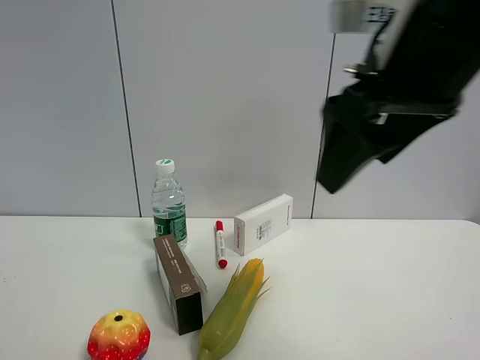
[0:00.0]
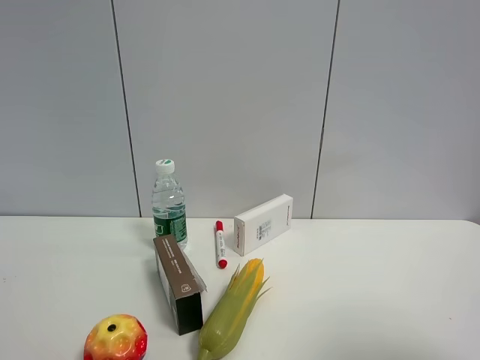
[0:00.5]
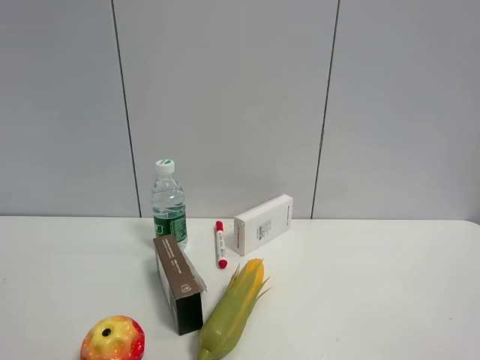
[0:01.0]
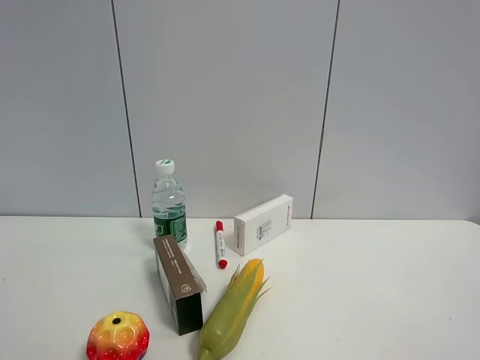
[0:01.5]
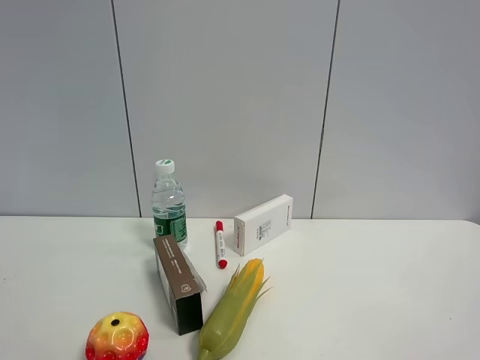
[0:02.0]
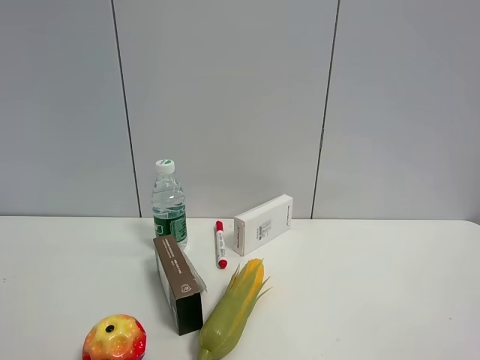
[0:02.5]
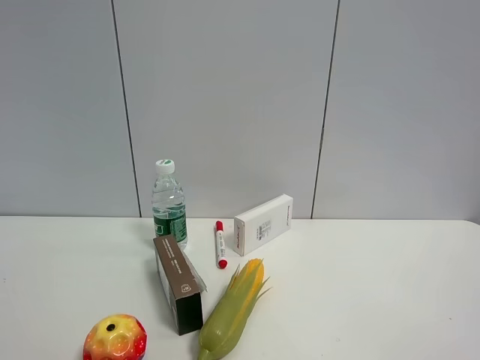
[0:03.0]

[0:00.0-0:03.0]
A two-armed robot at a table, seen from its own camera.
Task of the whole recording: the gripper move the object.
0:00.0 to 0:01.5: The right gripper is displaced backward and to the right by roughly 30 cm.
0:01.5 to 0:03.0: Neither gripper changes place.

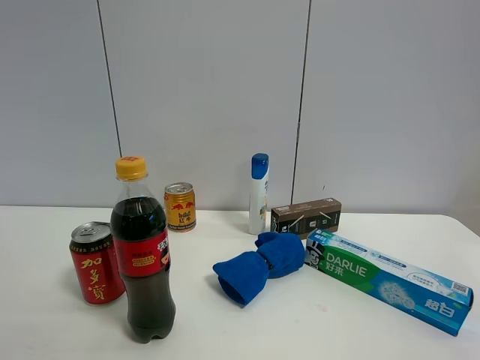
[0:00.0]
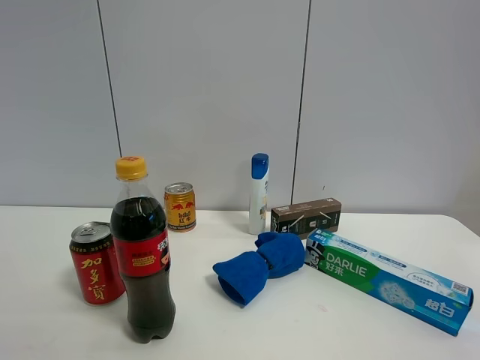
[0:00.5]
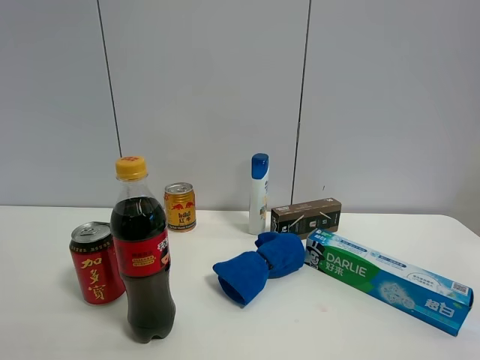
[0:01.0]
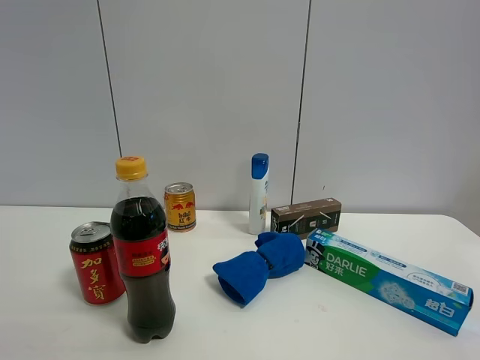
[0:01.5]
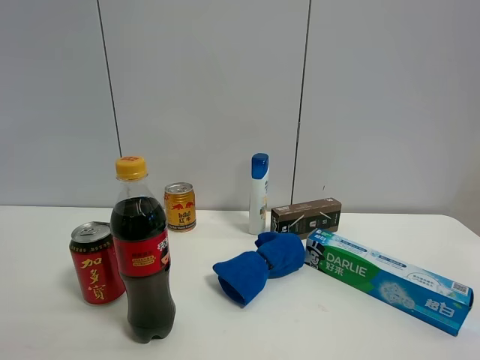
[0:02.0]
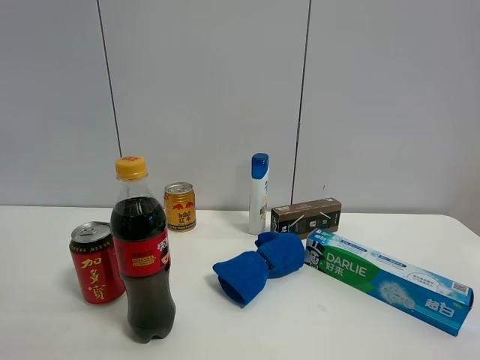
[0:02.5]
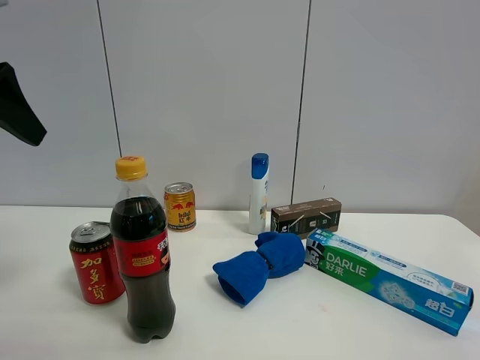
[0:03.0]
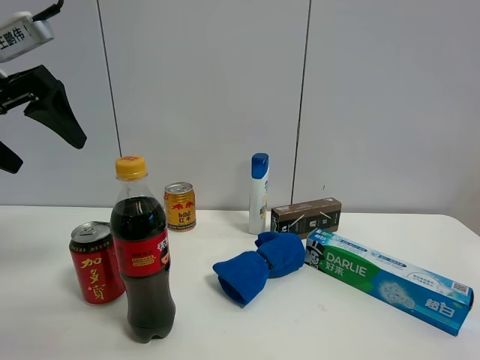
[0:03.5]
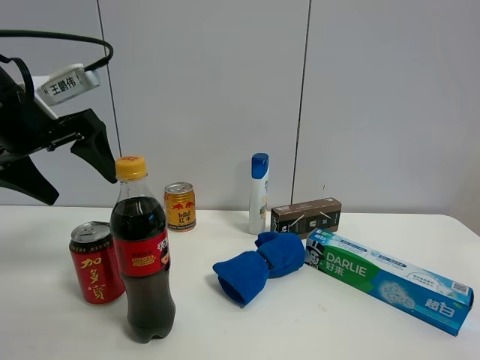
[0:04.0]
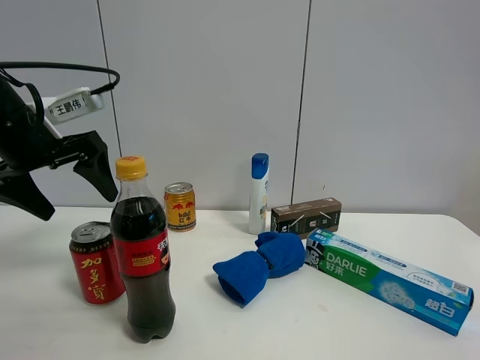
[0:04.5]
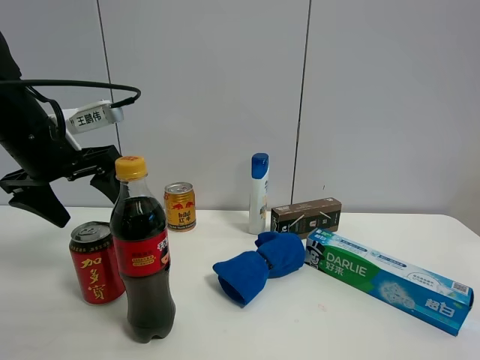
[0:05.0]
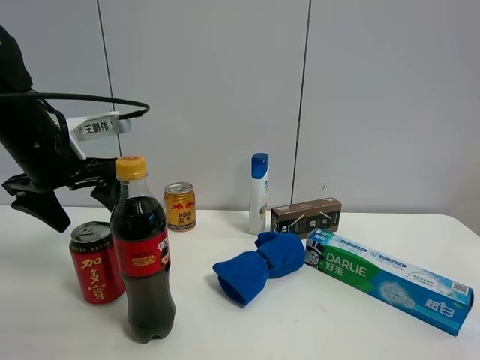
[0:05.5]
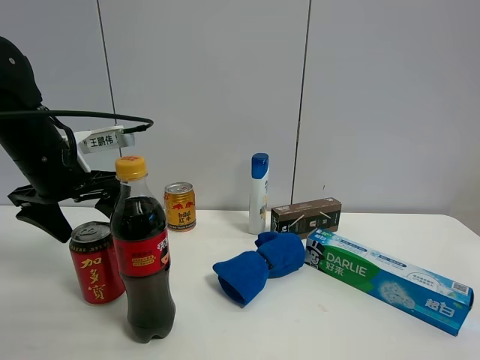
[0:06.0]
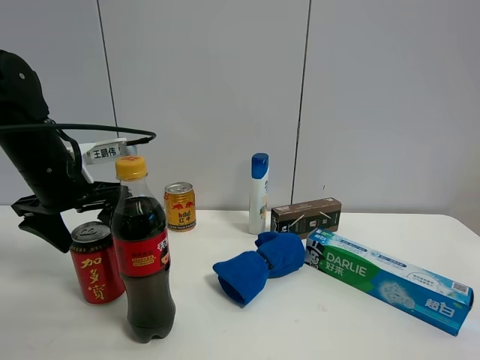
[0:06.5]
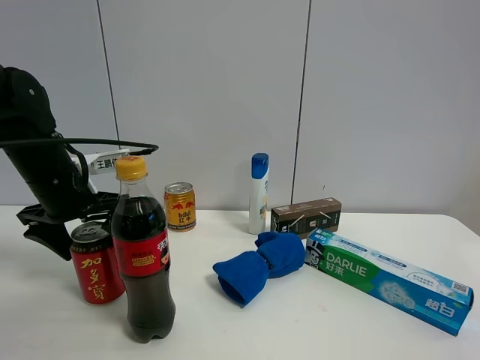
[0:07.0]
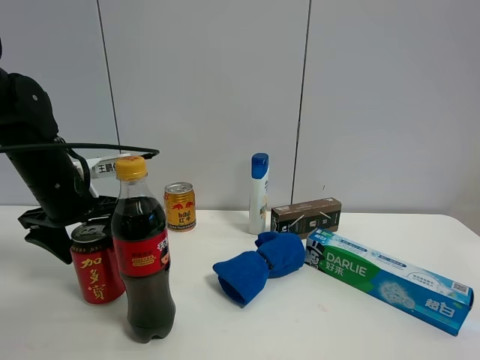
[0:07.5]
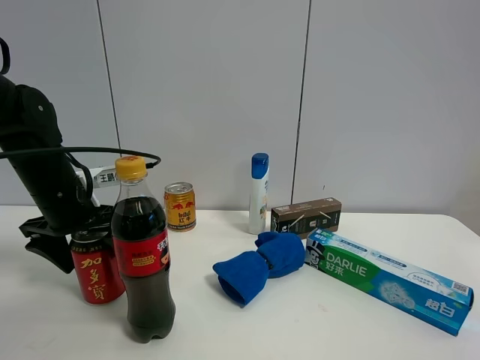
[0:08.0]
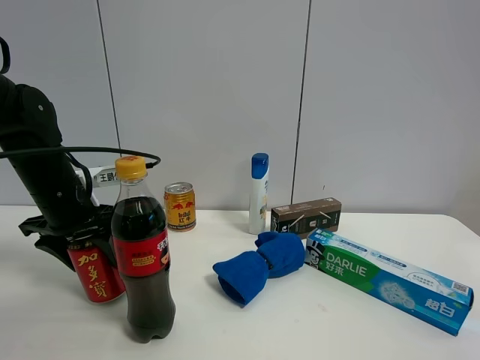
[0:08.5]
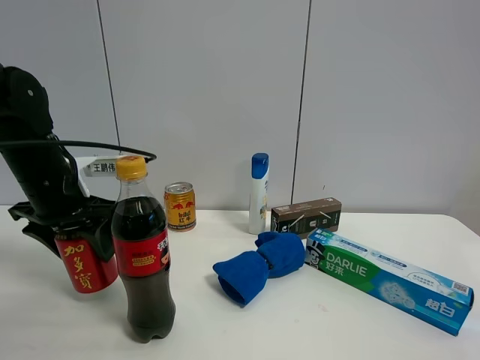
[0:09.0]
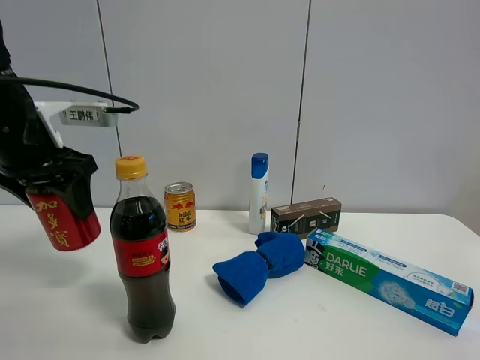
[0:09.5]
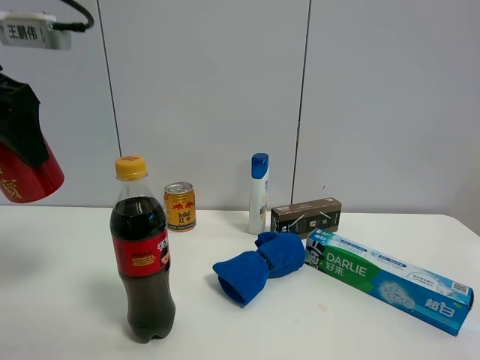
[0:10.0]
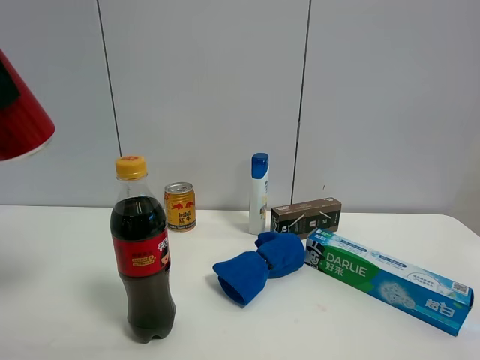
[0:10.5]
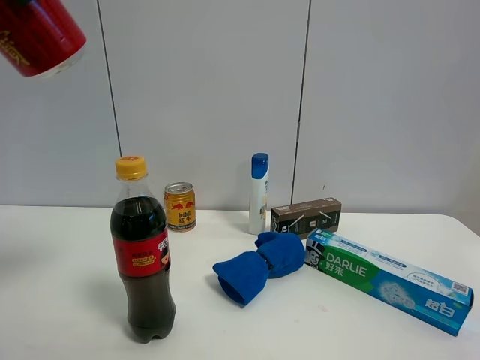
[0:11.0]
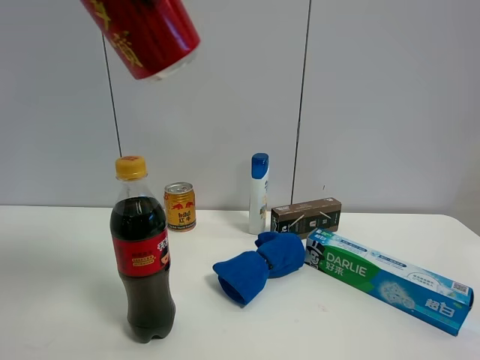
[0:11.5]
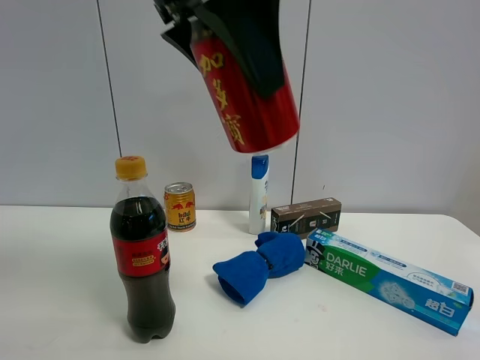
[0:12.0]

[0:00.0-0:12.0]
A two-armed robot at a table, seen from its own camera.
Task of the whole recording: the gripper move the object.
Step, 0:00.0 to 0:08.0: Grasp the Jia Duo Bao with the left gripper.
0:02.0 to 0:04.0: The left gripper goes about 25 cm forward and downward.
0:04.0 to 0:06.0: The left gripper shifts some 5 cm downward.
0:06.0 to 0:08.0: The left gripper heads downward, covering about 5 cm.
0:08.0 to 0:10.0: The left gripper is displaced upward and backward by roughly 20 cm, and closes its fingers.
0:10.0 to 0:12.0: The left gripper heads to the right, covering about 20 cm.

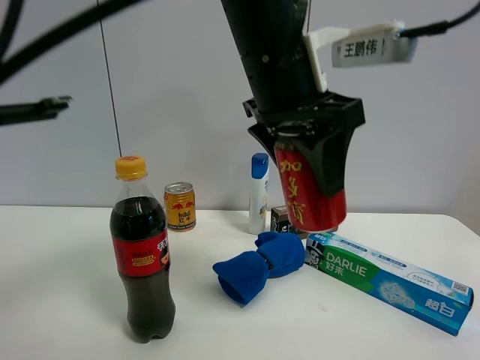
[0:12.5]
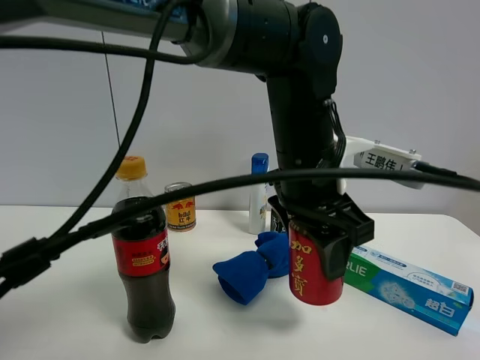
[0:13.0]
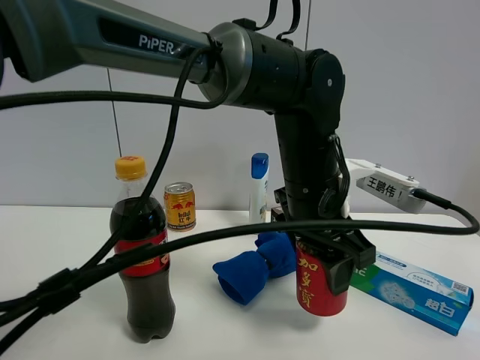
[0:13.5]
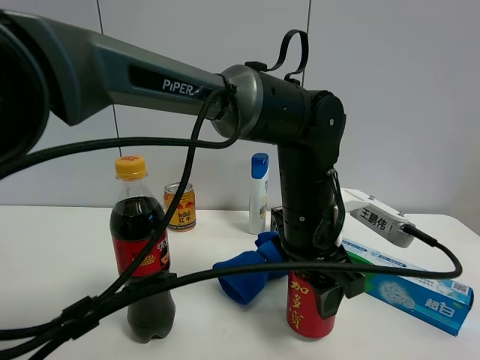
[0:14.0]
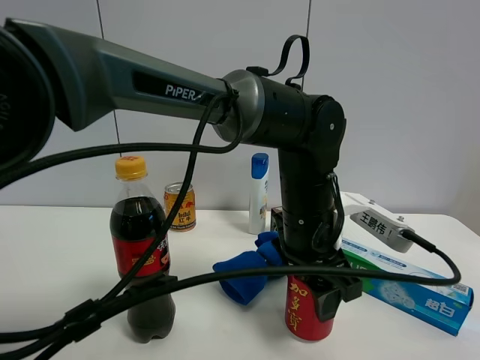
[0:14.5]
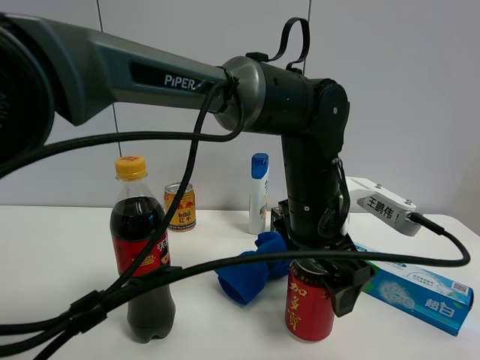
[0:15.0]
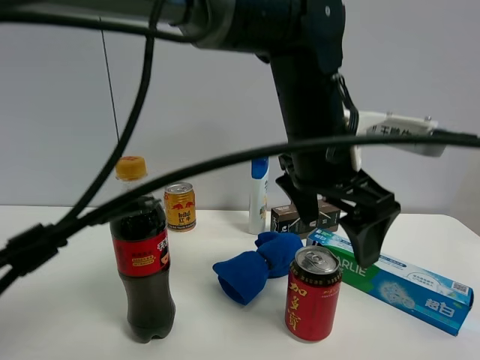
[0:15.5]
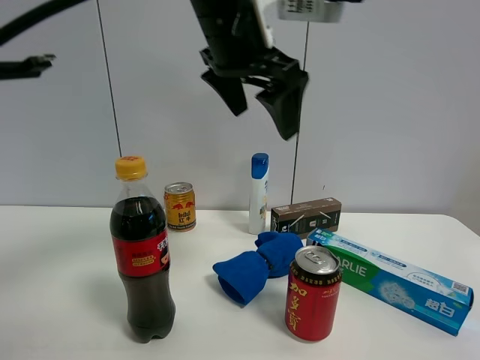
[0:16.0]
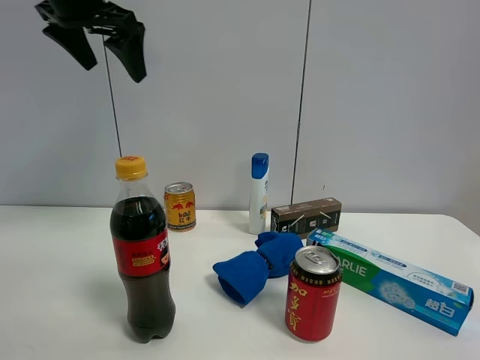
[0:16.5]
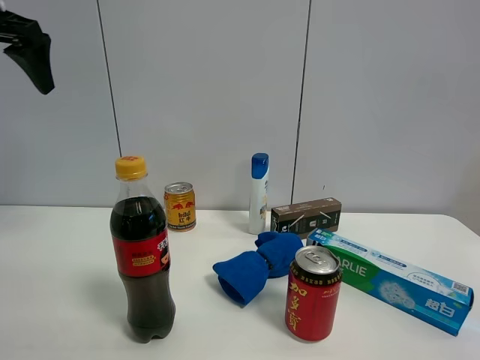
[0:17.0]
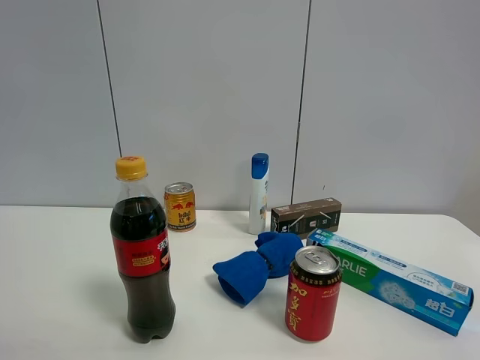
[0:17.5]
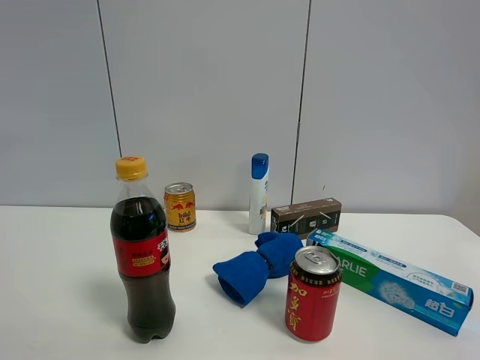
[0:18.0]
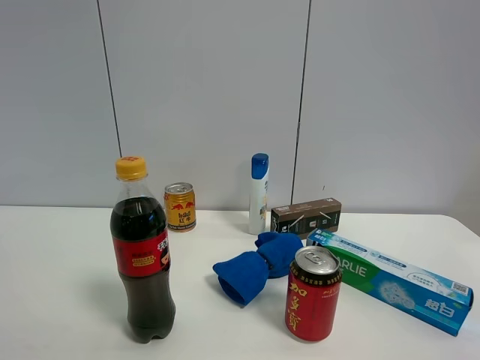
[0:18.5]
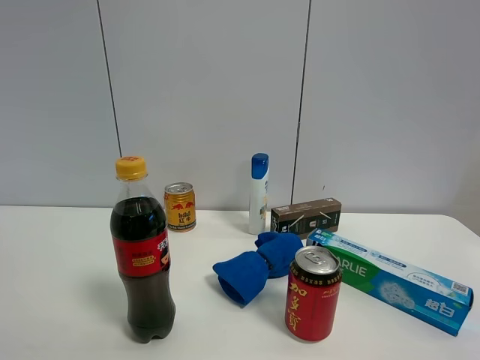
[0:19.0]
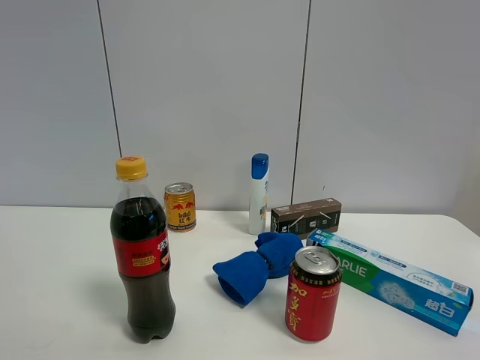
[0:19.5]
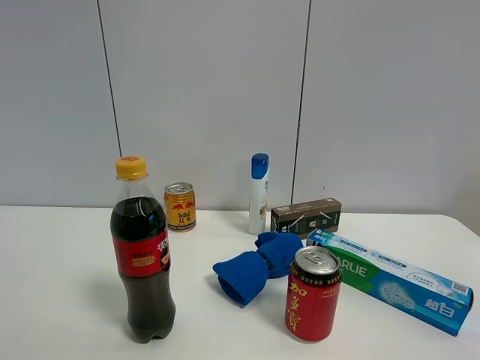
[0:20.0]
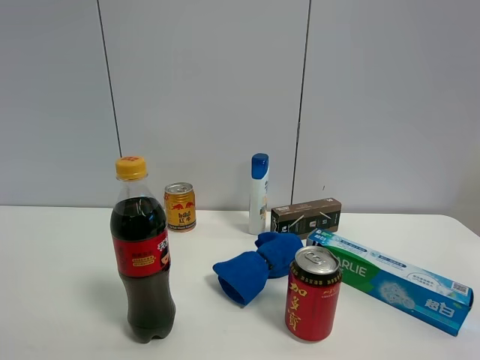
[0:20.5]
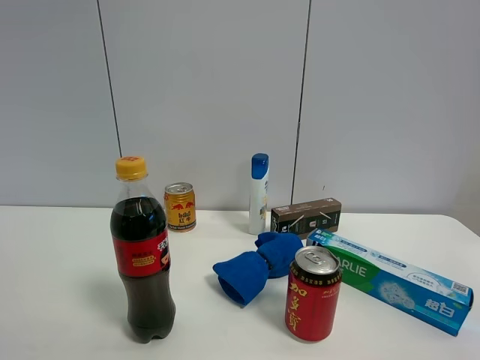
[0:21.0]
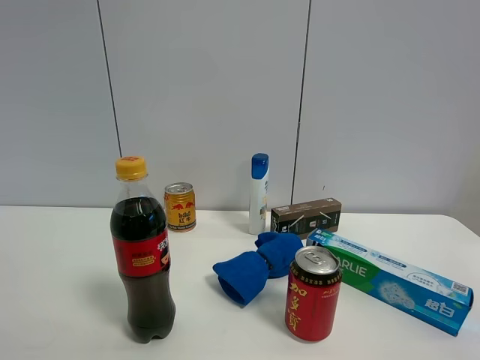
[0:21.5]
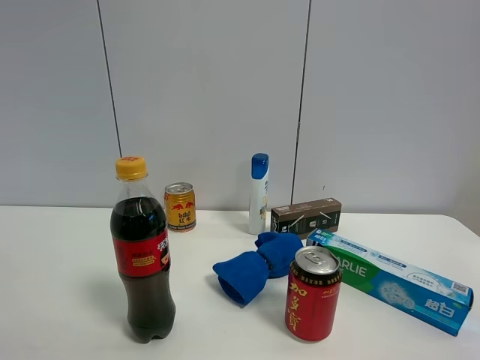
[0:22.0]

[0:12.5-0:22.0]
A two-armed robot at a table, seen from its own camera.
Task of the whole recording: the gripper move the object.
Step, 0:12.5 to 0:15.0: Place the Jia Duo Bao on the table with the left gripper.
0:12.5 to 0:14.5: The left gripper shifts approximately 15 cm downward.
0:14.5 to 0:16.5: The left gripper shifts about 40 cm to the left and upward, and opens.
0:16.5 to 0:18.0: The left gripper goes some 35 cm backward.
0:20.0 to 0:22.0: The two grippers keep their place.

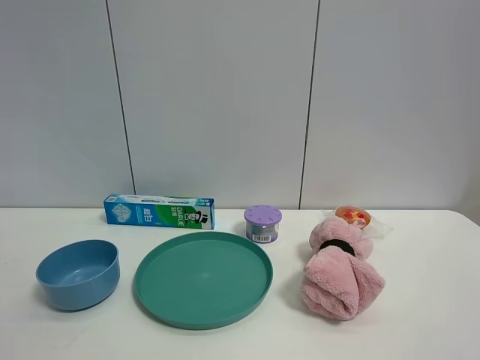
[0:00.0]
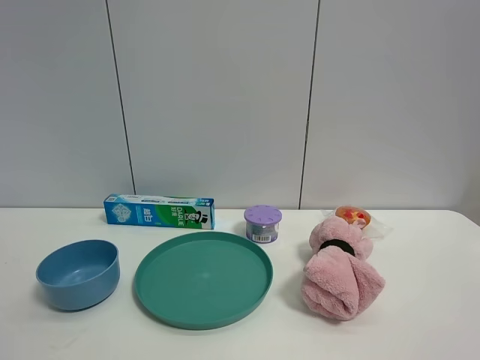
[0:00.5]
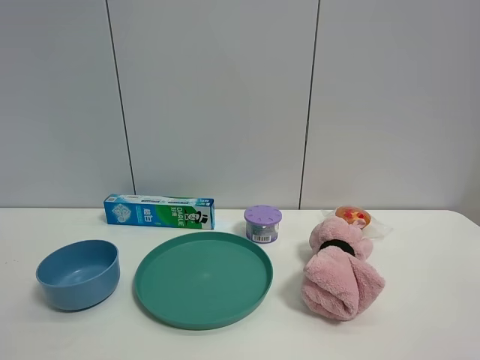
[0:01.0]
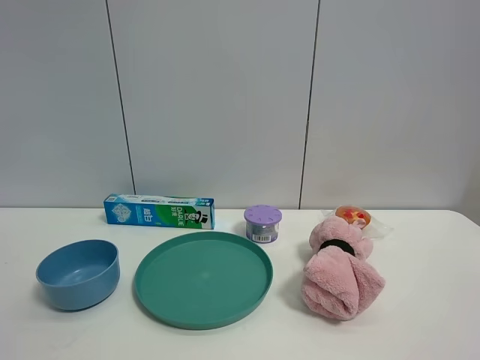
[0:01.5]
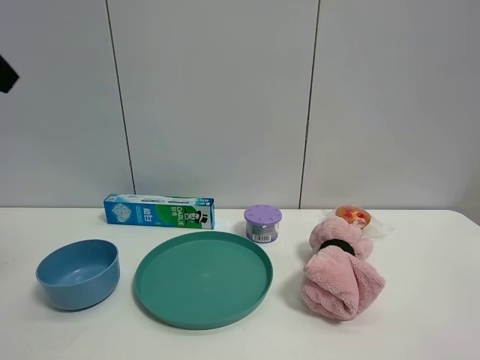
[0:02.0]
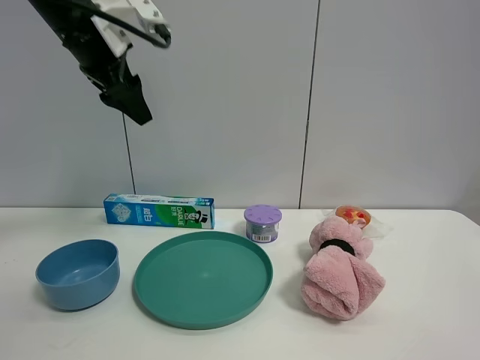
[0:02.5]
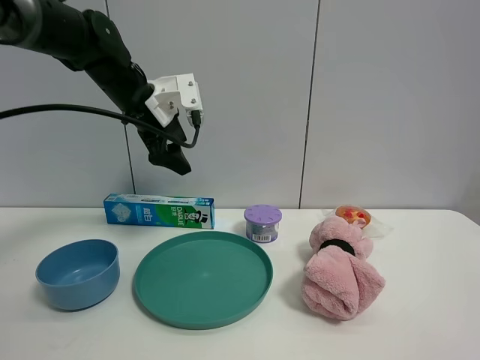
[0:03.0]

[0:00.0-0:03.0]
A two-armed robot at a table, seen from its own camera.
Task of the whole recording: the gripper move the object.
0:01.5 to 0:03.0: The left gripper heads forward, covering approximately 40 cm.
